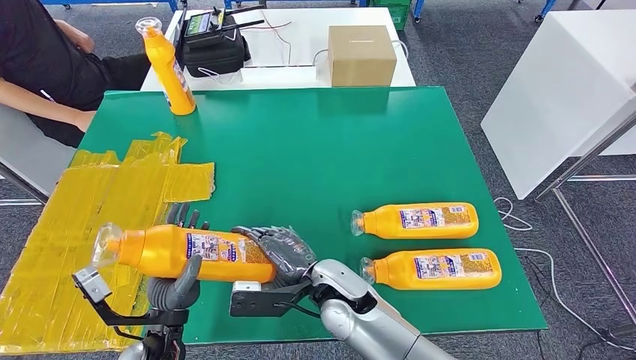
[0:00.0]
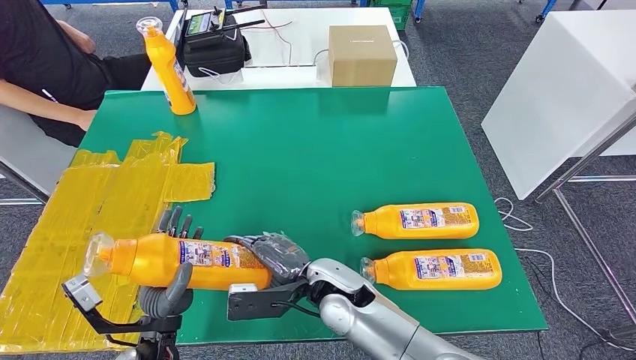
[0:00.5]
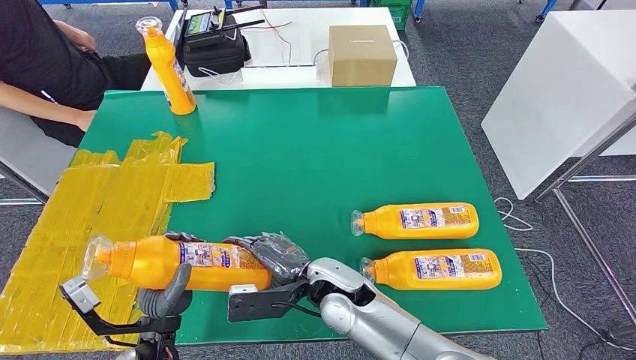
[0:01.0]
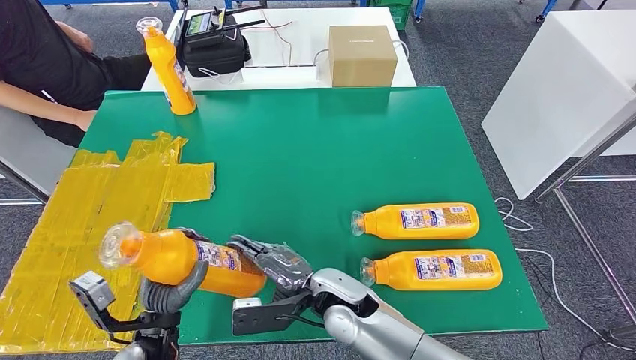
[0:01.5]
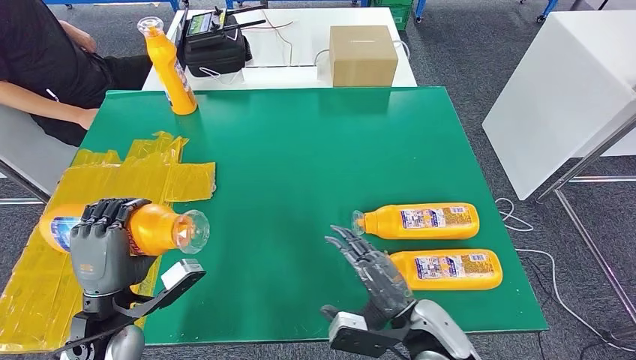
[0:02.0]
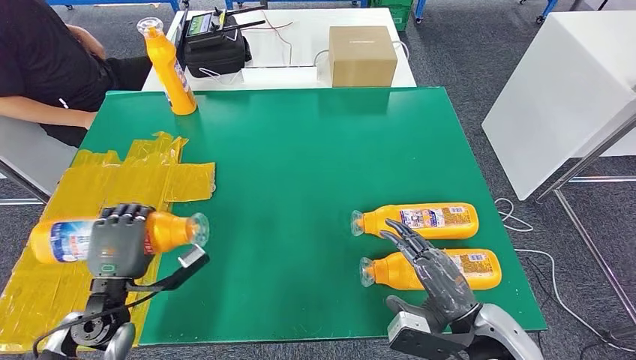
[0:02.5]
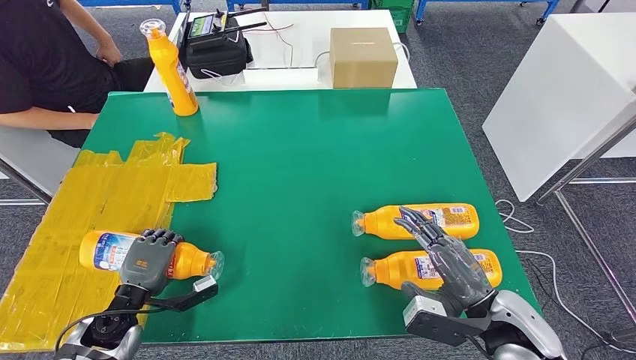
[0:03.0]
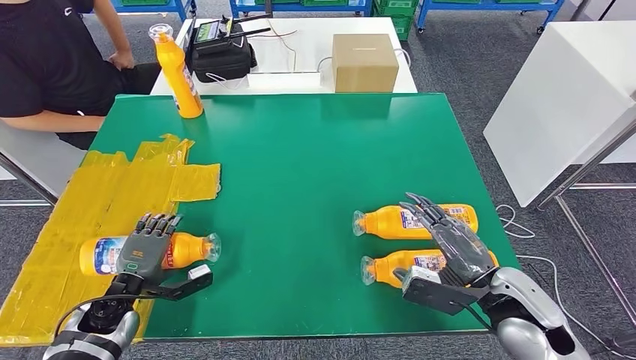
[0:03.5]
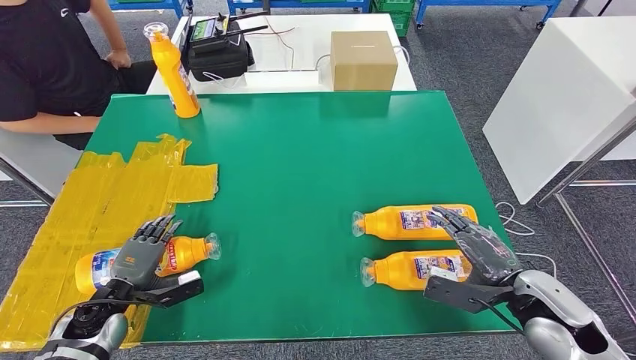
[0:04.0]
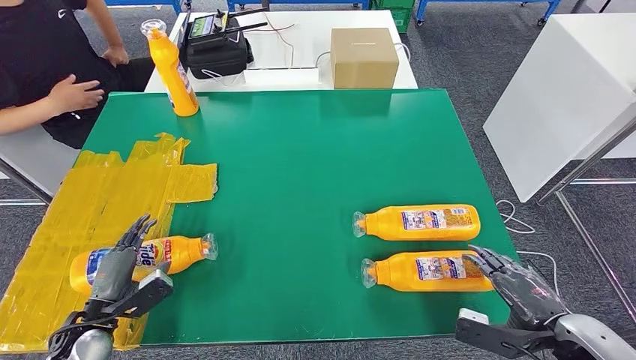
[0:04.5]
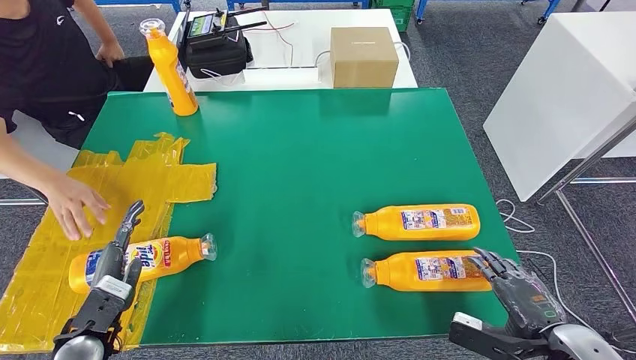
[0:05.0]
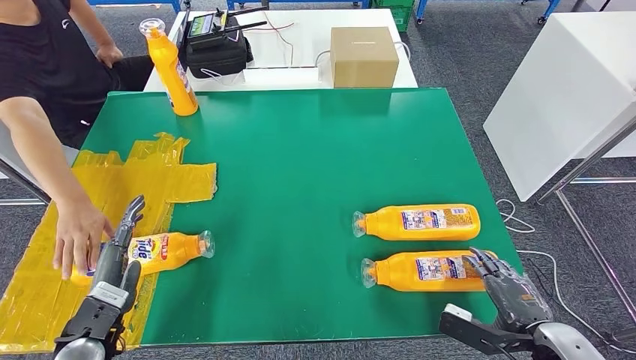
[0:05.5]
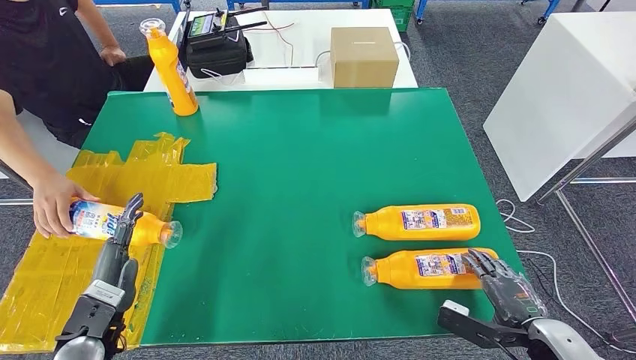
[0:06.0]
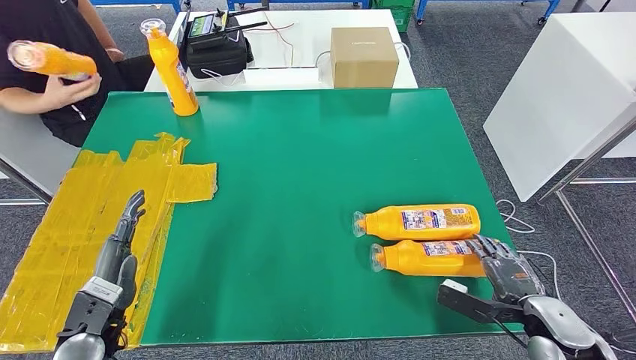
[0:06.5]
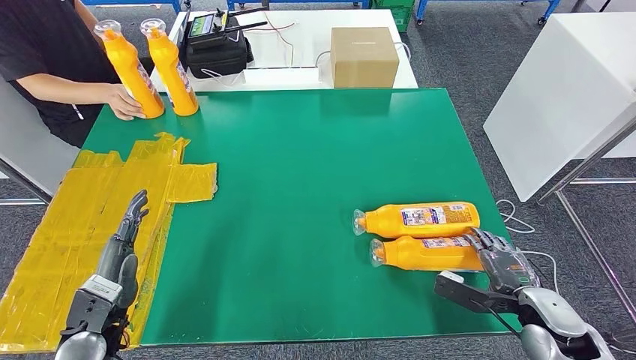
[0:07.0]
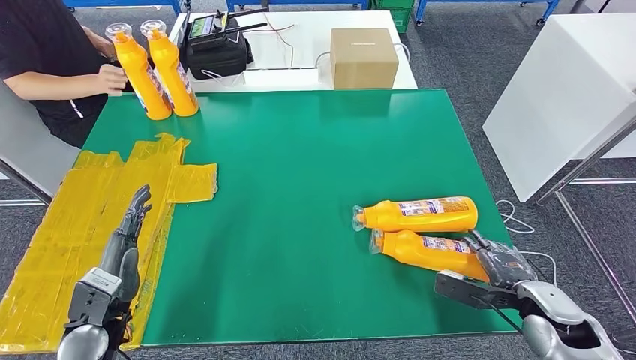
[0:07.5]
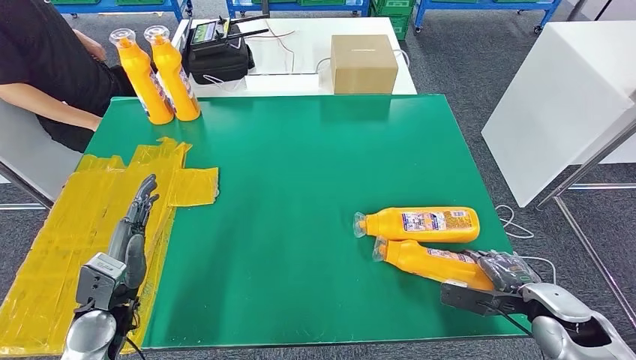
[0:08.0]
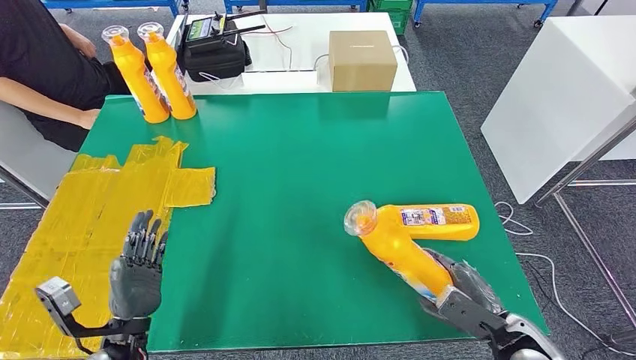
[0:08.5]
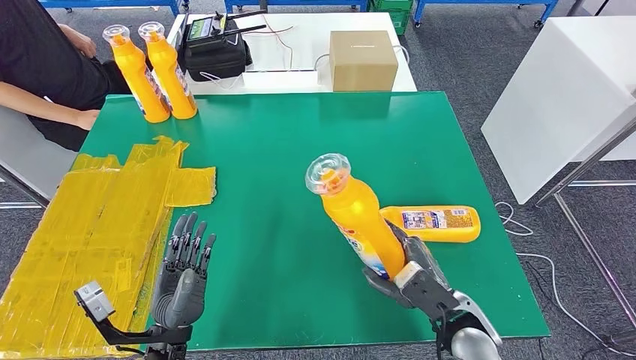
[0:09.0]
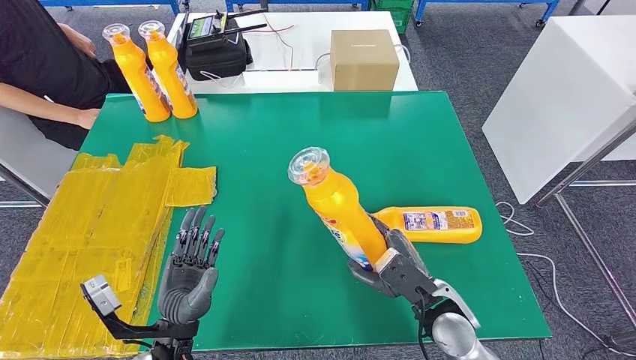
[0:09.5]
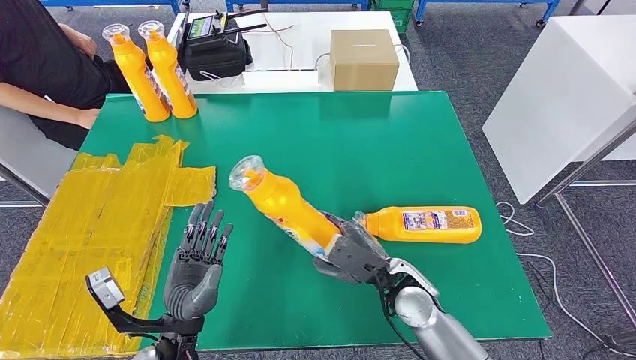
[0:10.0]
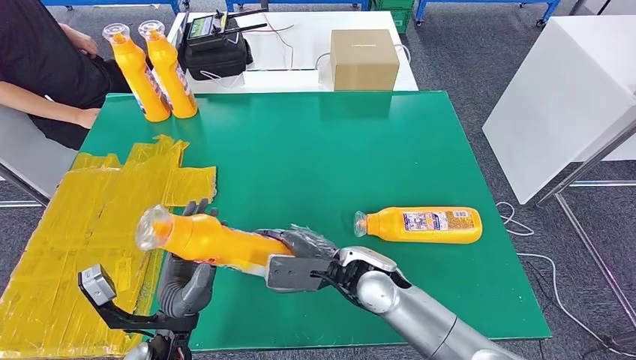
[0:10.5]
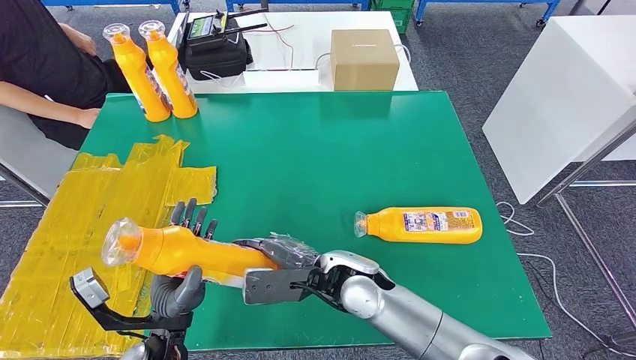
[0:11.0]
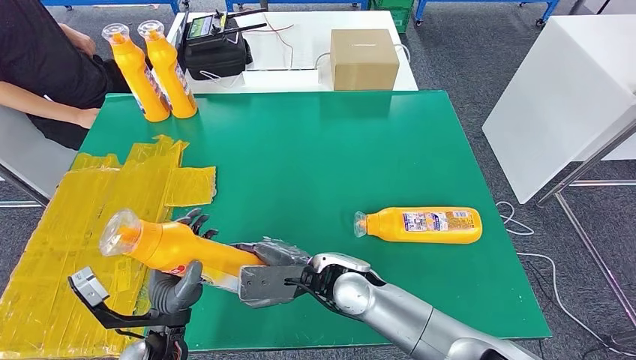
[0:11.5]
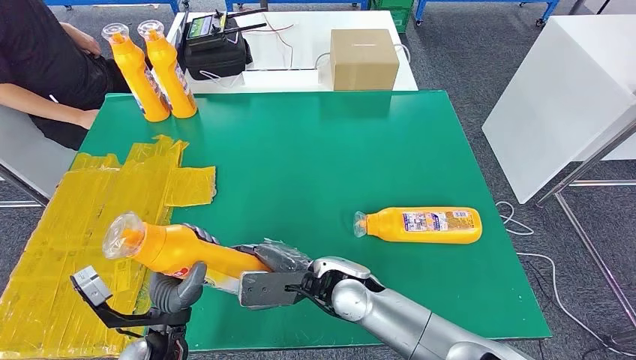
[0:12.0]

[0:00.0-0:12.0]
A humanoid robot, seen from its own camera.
Step, 0:00.0 to 0:02.5: Flip the bottle to face forward.
Step, 0:03.0 to 0:09.0: Pick up the bottle from the table.
0:00.0 to 0:02.0: The right hand moves to the right and backward, some 15 cm. The left hand goes about 5 cm to the left.
0:10.0 to 0:12.0: The right hand shifts some 10 cm to the left.

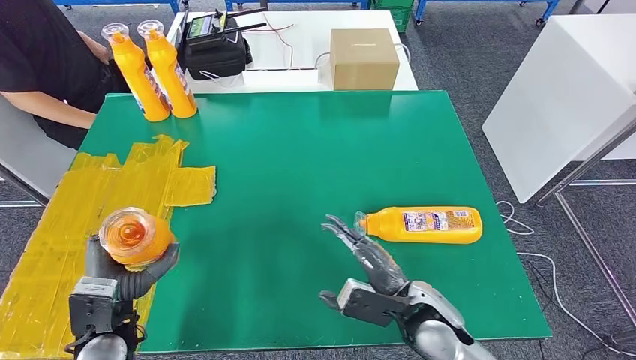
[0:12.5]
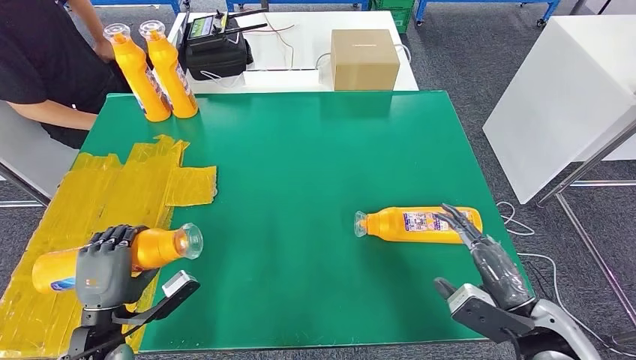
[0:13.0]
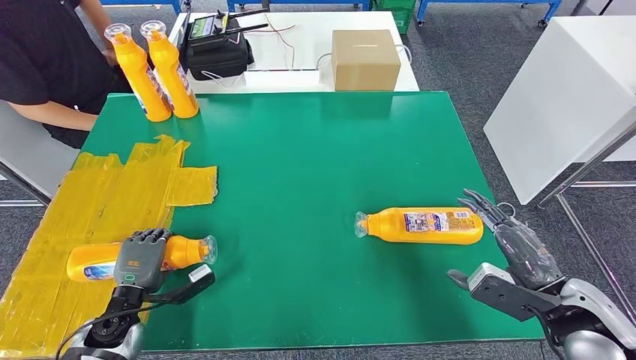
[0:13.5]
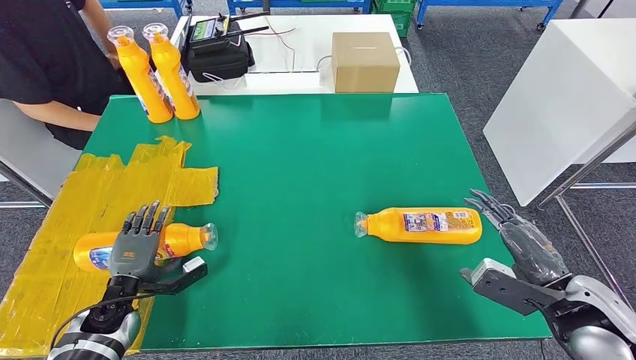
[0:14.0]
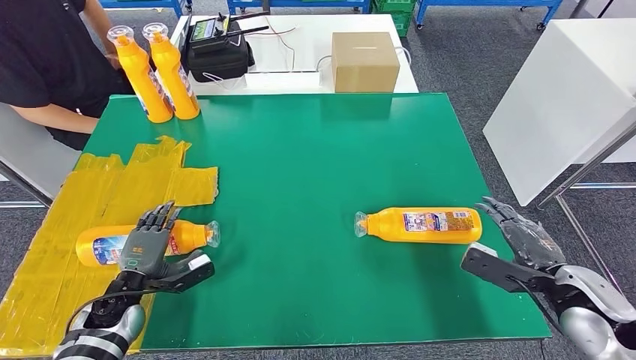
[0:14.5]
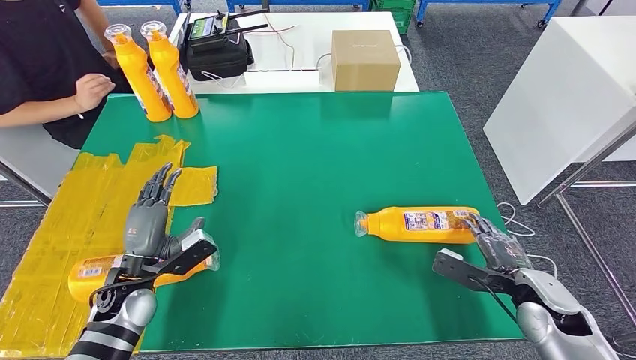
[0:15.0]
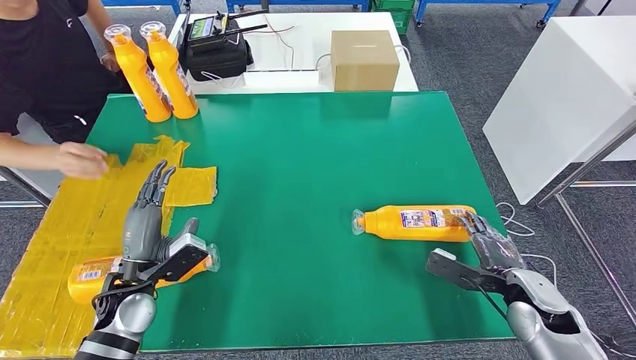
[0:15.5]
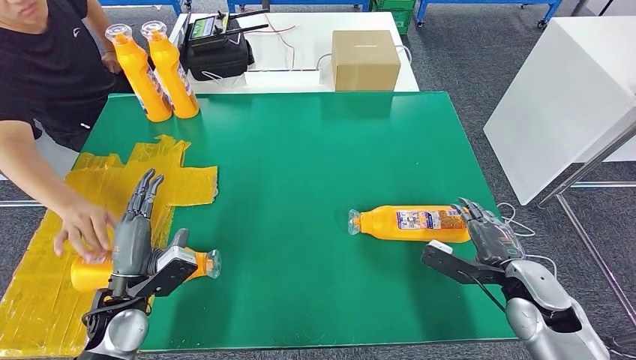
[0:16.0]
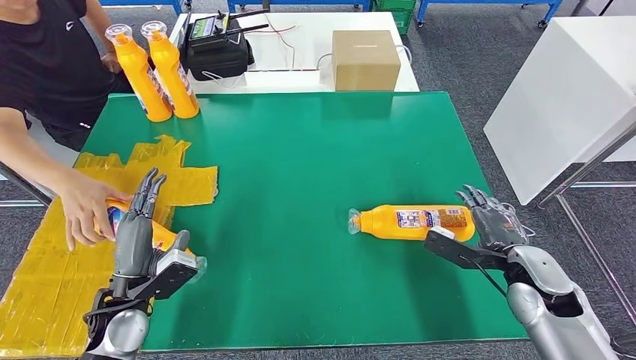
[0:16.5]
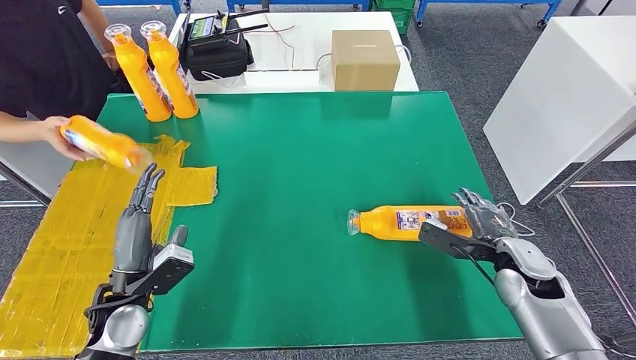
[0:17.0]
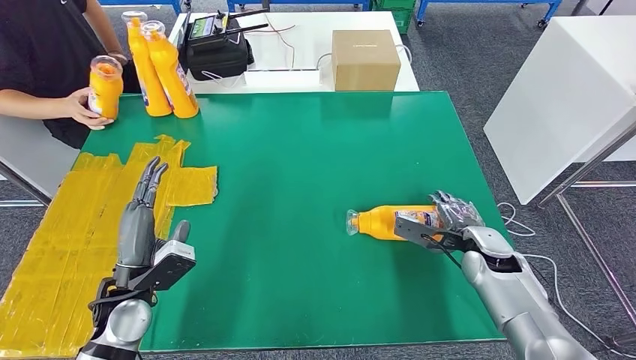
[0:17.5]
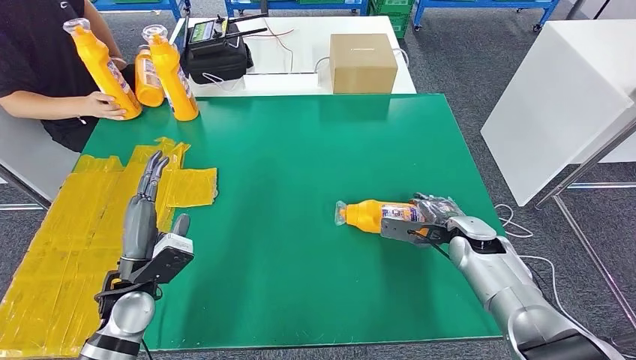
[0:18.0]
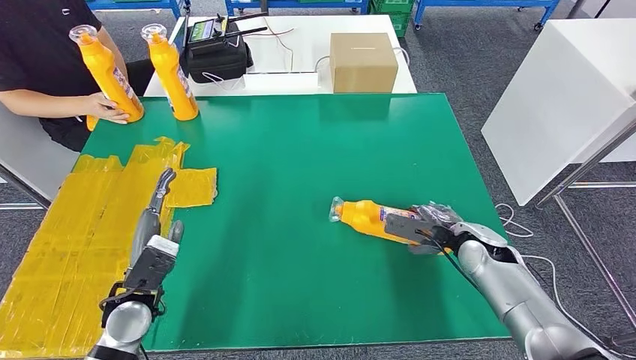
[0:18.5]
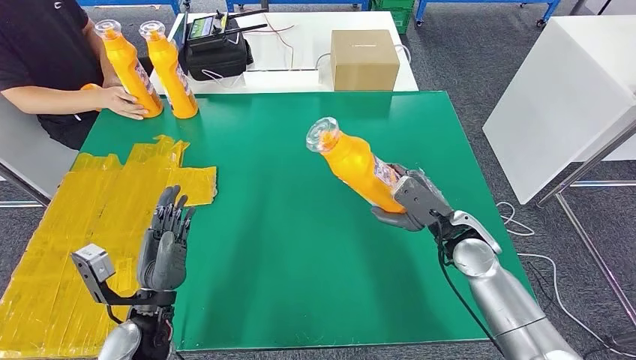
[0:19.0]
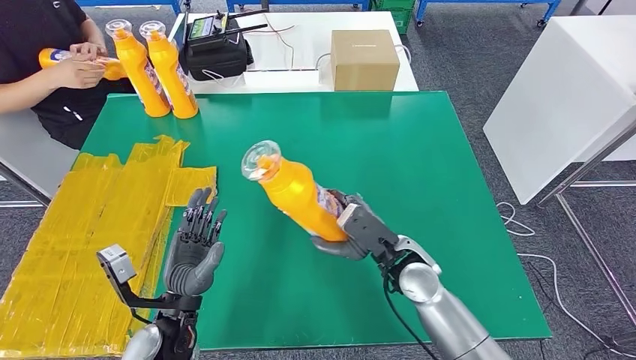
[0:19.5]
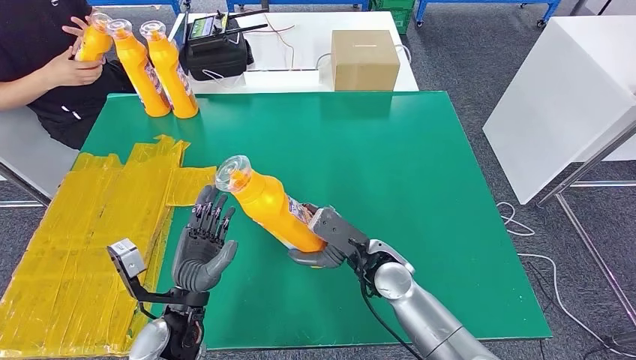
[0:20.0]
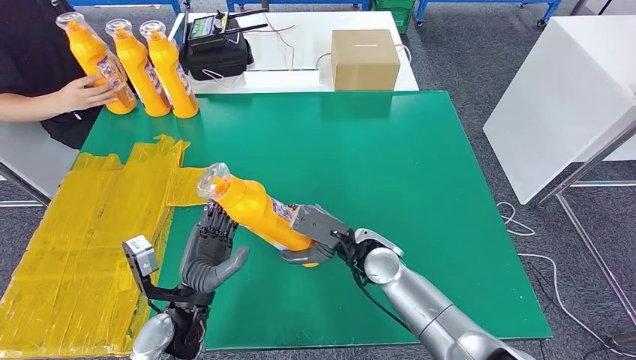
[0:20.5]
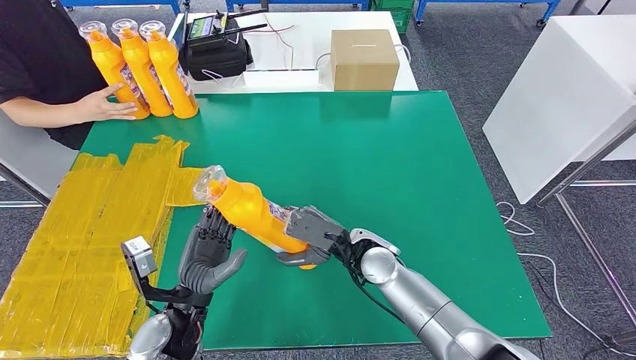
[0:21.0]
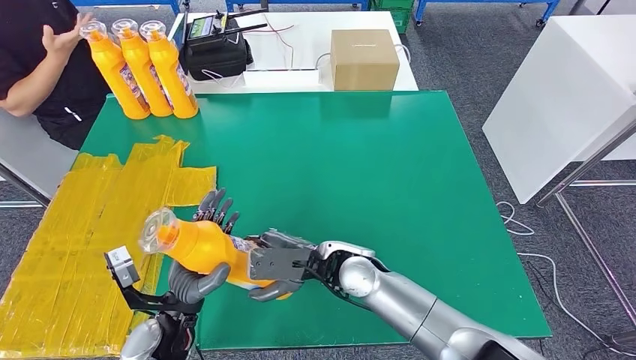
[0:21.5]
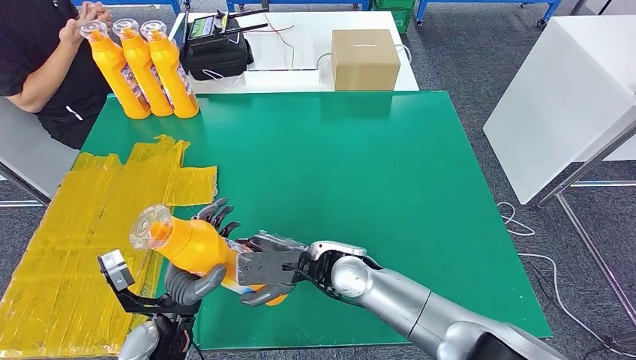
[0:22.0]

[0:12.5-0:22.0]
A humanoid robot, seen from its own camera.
Step, 0:12.5 to 0:16.0: Flip the bottle to face forward.
Step, 0:16.5 to 0:19.5: Pick up the bottle from the table.
0:14.5 to 0:16.5: The right hand ends up approximately 5 cm from where it was. The left hand moves upward and to the right, about 10 cm.
0:20.0 to 0:22.0: The right hand goes about 10 cm to the left.
